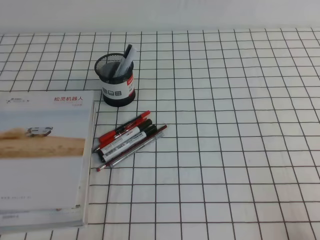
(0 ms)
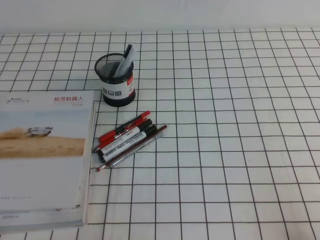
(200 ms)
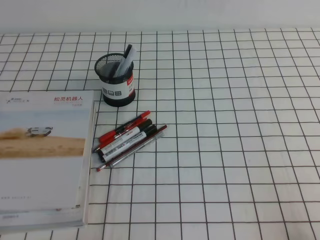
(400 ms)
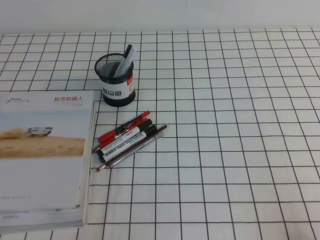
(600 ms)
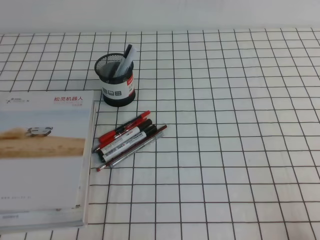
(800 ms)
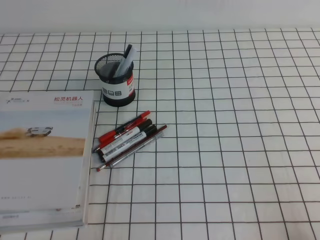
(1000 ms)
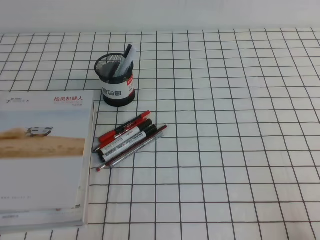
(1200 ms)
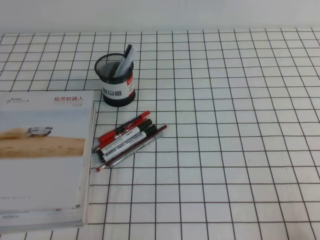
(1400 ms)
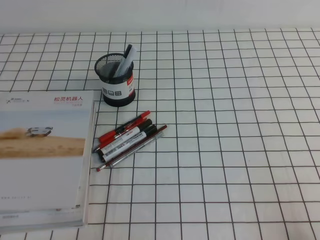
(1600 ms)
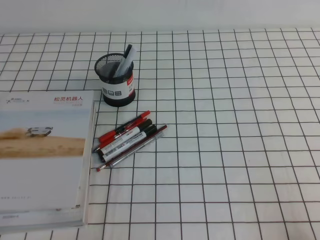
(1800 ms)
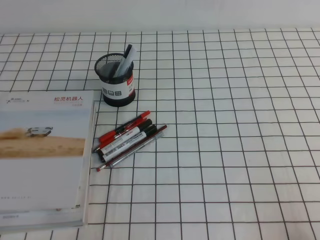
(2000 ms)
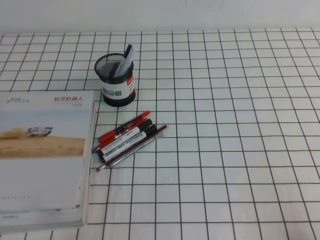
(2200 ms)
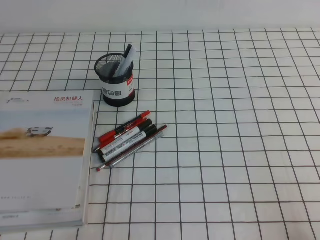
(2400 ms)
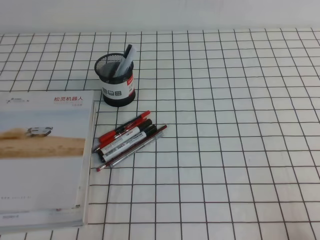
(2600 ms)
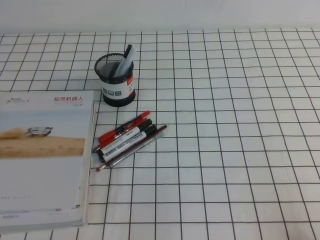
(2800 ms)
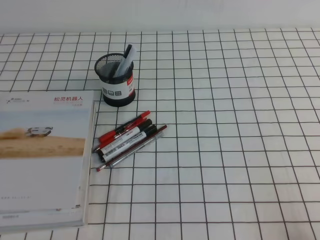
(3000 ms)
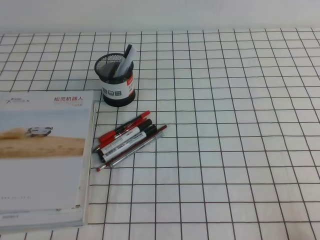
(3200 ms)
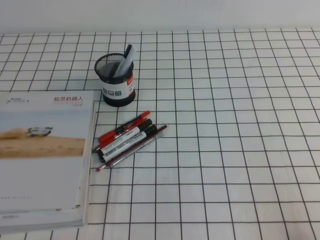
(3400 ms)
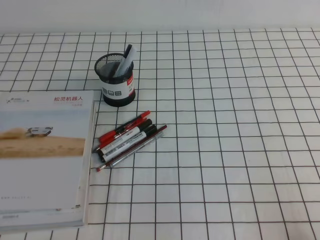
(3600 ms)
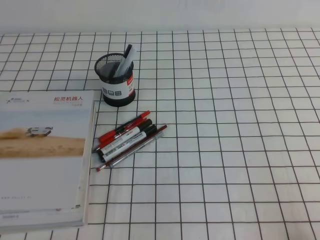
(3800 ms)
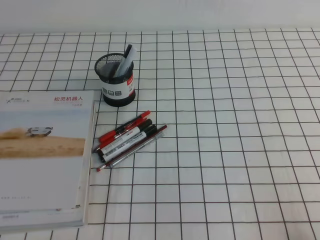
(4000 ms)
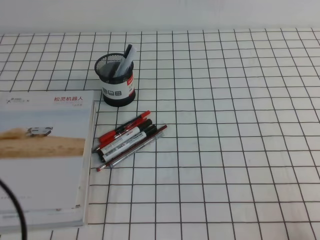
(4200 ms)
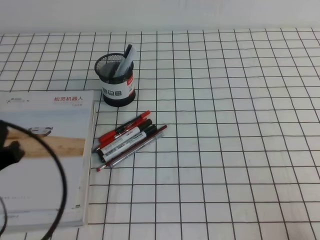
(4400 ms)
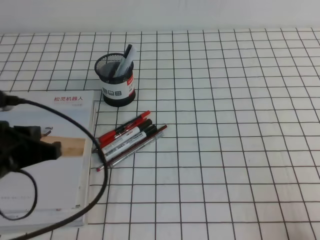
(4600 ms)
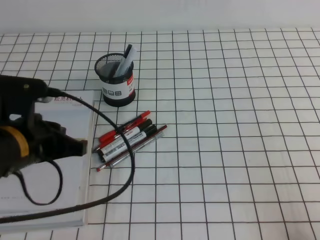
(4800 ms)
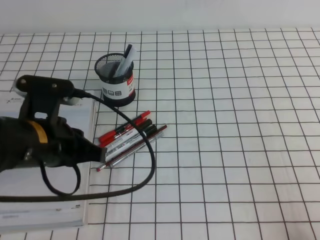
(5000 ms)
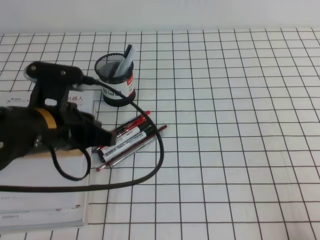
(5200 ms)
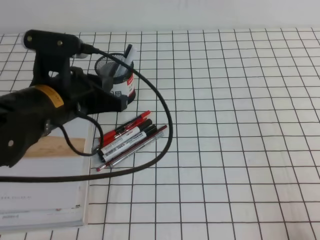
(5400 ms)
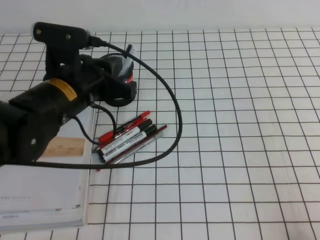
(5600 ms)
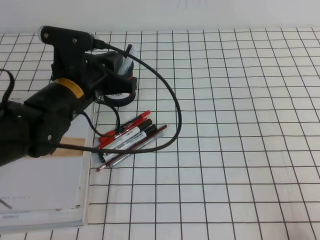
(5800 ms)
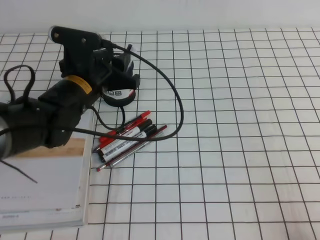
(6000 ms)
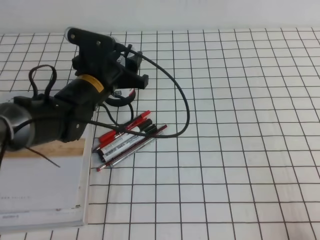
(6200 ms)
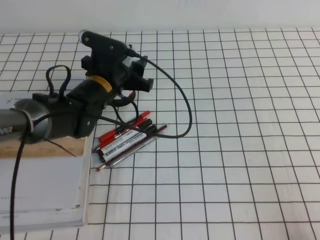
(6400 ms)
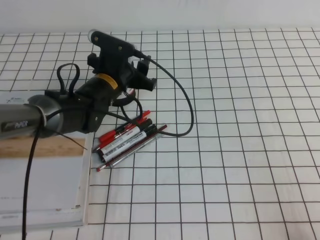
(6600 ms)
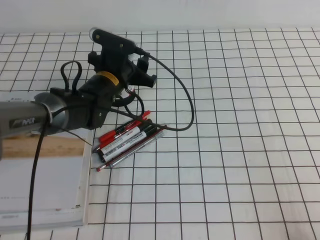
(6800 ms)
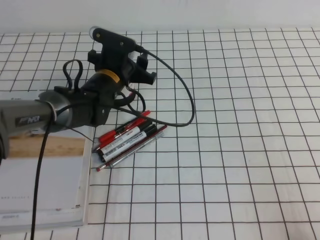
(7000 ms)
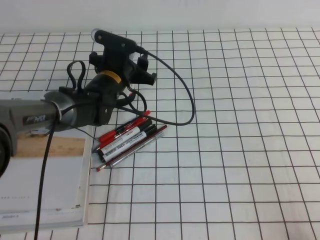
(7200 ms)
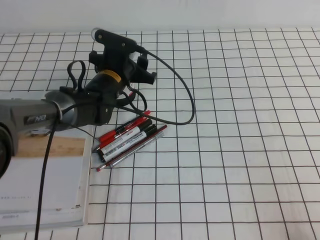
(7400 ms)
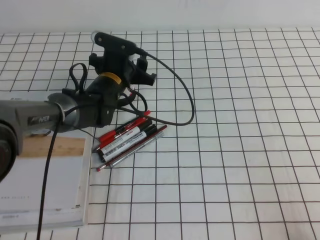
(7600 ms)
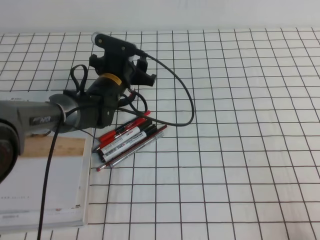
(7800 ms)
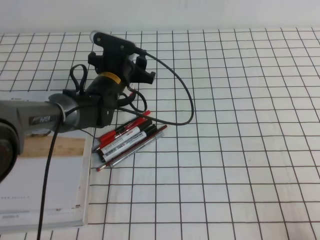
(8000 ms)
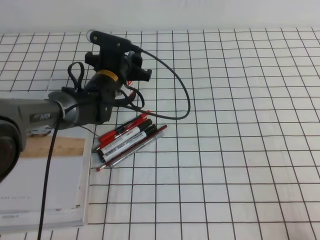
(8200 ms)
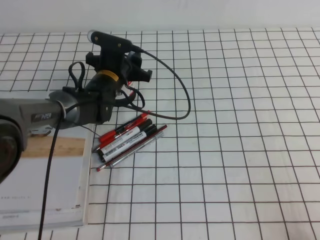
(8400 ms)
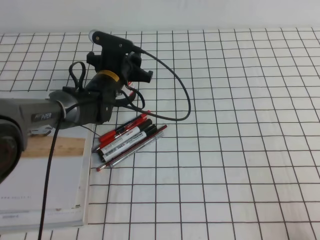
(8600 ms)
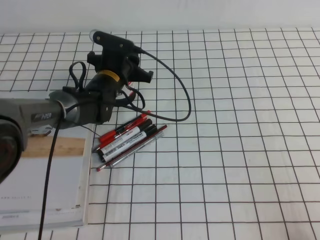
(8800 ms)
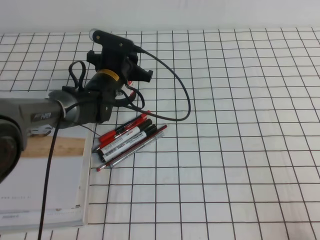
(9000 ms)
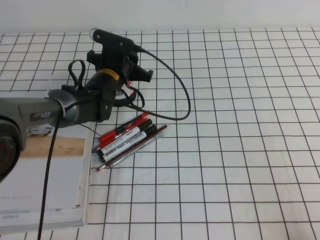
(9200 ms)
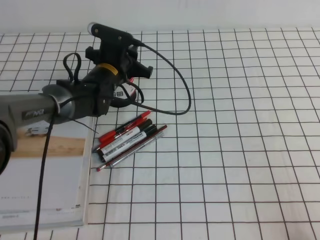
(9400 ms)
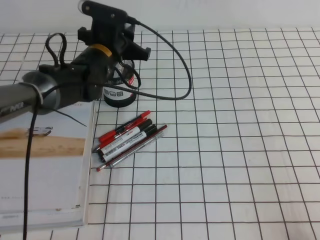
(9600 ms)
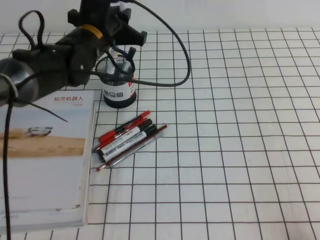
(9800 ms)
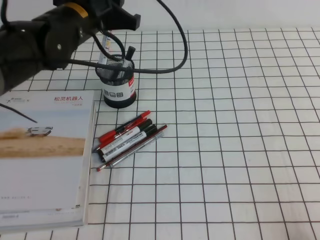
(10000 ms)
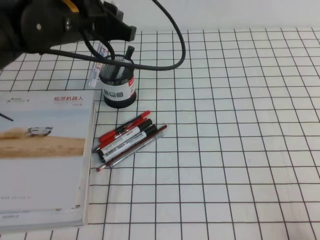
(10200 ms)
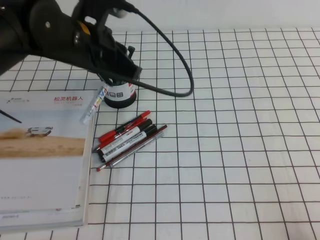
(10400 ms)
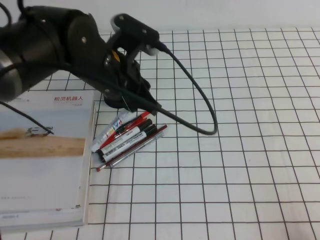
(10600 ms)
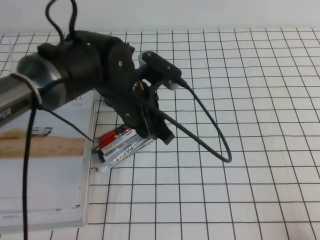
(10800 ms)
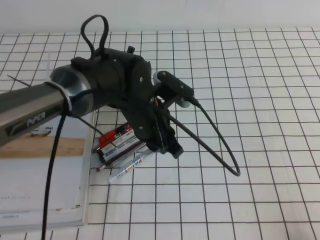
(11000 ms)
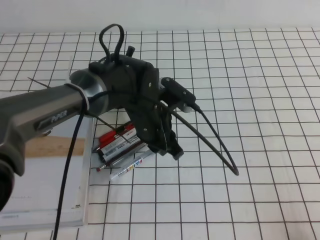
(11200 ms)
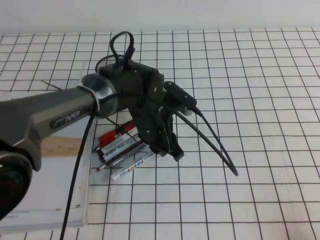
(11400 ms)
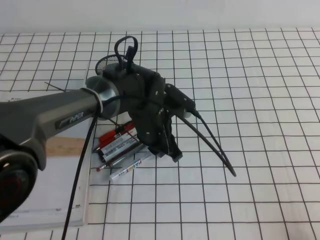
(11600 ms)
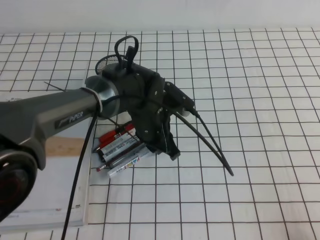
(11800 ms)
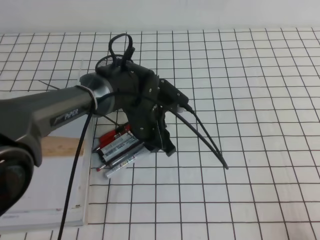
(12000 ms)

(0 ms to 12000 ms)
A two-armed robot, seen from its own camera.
0 ms - 1600 ms: Both grippers stay put.
3000 ms - 4400 ms: The left gripper goes roughly 10 cm forward and upward.
4400 ms - 6000 ms: The left gripper shifts approximately 25 cm forward and to the right, and opens its fingers.
6000 ms - 7600 ms: The left gripper shifts some 10 cm forward and downward, and opens.
7600 ms - 9000 ms: The left gripper closes.
9000 ms - 10400 ms: The left gripper travels upward and backward by some 20 cm.
10400 ms - 12000 ms: The left gripper shifts approximately 15 cm downward and to the right.

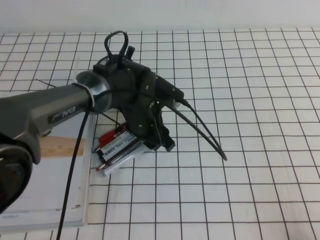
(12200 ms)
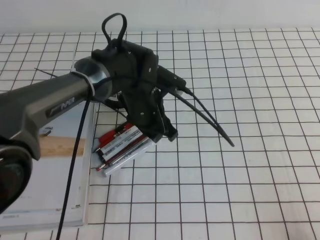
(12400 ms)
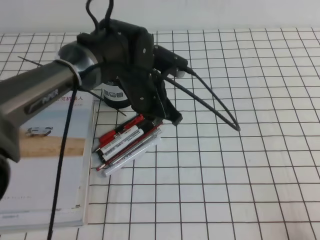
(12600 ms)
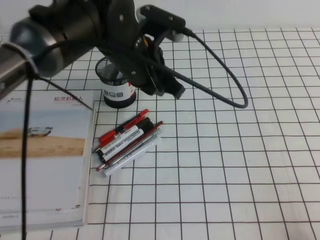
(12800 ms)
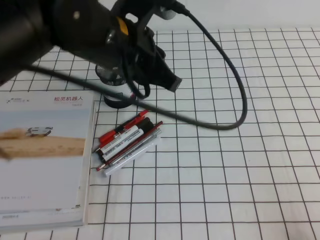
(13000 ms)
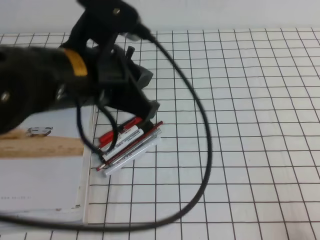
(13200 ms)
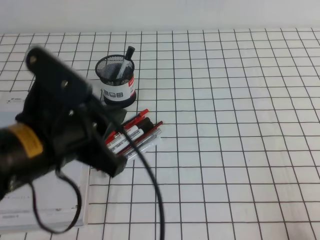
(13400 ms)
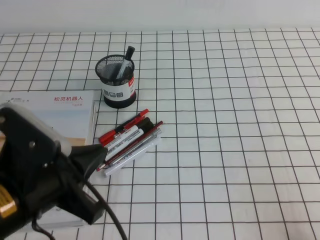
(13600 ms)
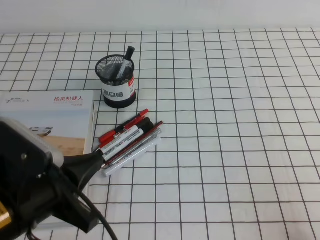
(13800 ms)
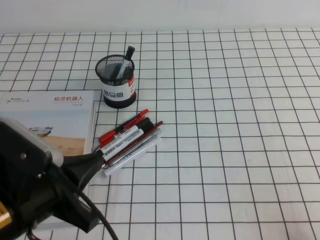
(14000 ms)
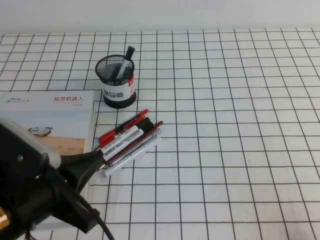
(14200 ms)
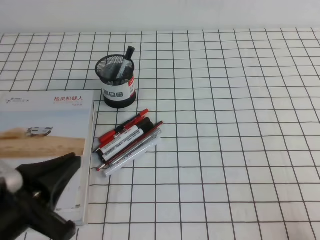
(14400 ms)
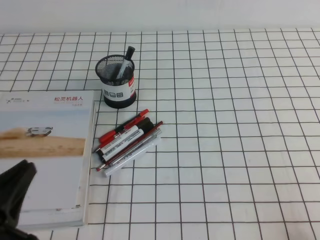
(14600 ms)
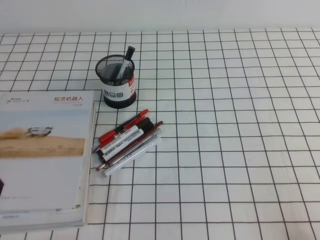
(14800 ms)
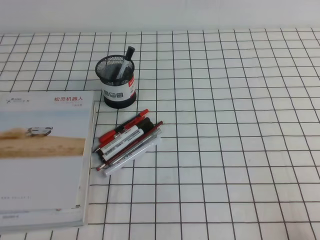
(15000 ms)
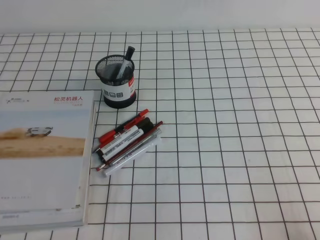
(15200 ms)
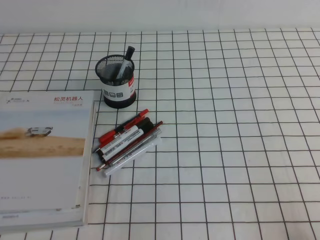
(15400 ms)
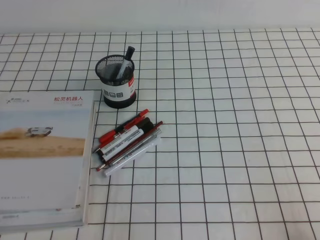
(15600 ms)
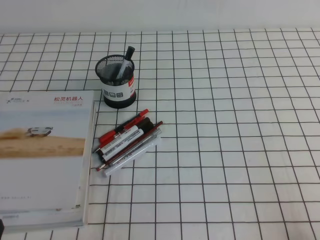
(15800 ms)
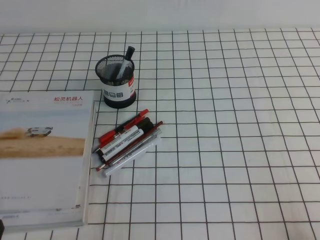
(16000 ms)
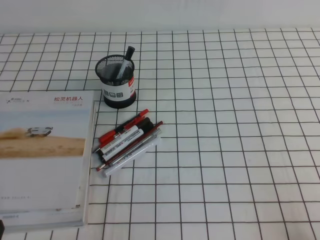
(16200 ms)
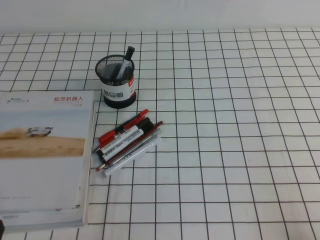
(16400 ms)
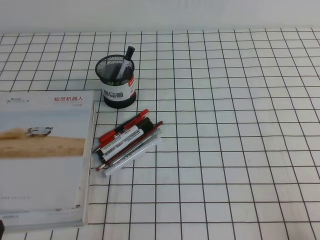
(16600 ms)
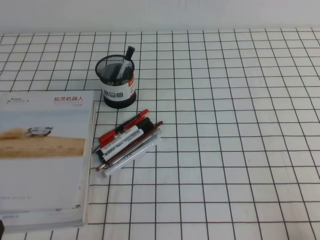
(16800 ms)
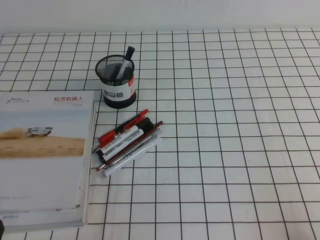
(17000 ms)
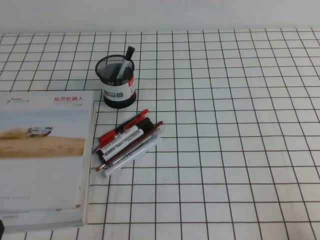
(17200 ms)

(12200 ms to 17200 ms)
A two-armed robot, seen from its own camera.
Step, 12200 ms - 17200 ms: Pick up the pen from the pen holder.
12200 ms - 13800 ms: The left gripper is displaced backward, to the left and upward by about 30 cm, and closes up.
13800 ms - 15600 ms: The left gripper goes some 15 cm to the left, downward and backward.
